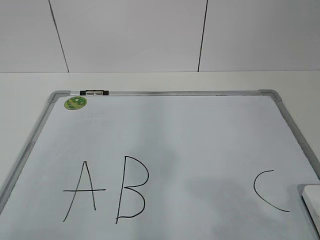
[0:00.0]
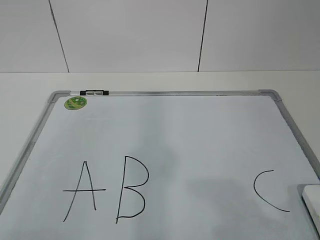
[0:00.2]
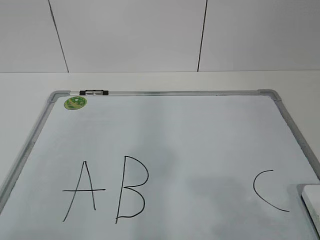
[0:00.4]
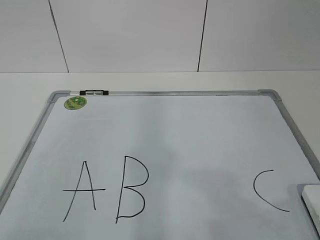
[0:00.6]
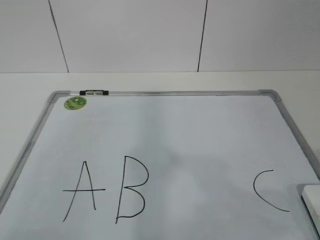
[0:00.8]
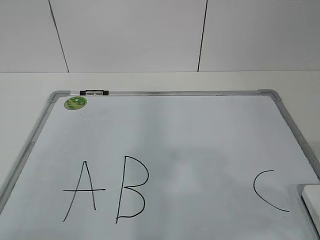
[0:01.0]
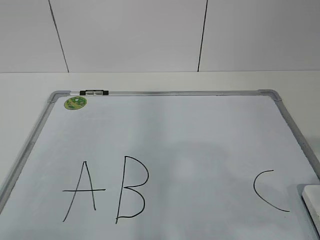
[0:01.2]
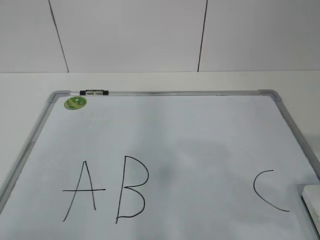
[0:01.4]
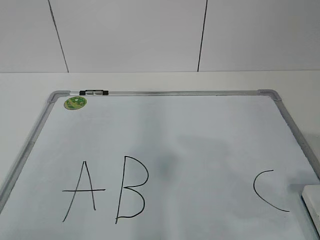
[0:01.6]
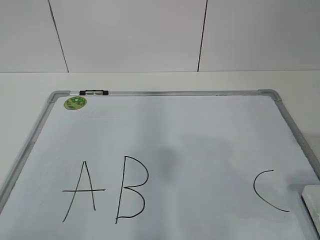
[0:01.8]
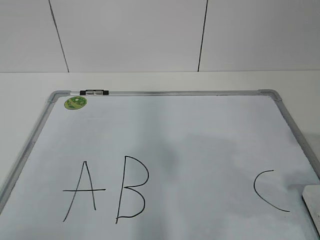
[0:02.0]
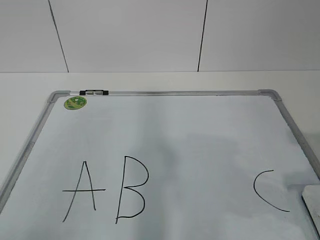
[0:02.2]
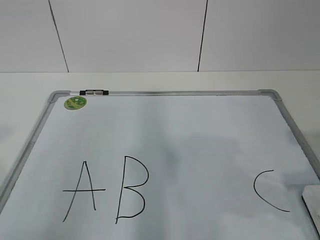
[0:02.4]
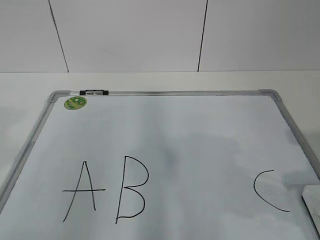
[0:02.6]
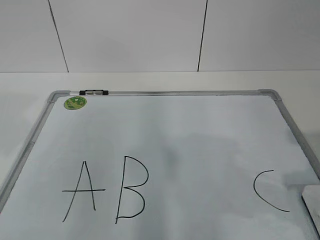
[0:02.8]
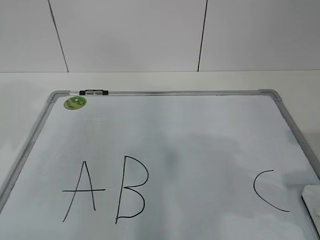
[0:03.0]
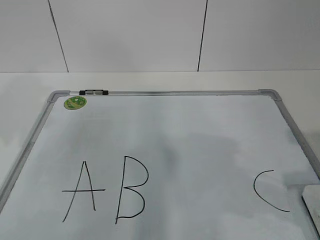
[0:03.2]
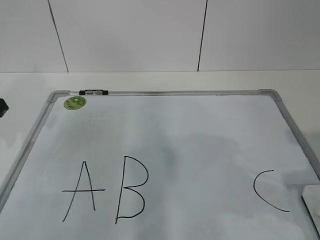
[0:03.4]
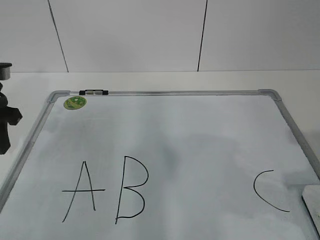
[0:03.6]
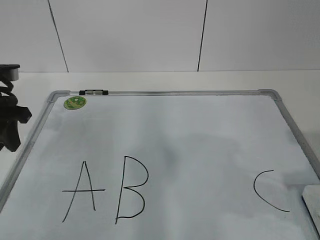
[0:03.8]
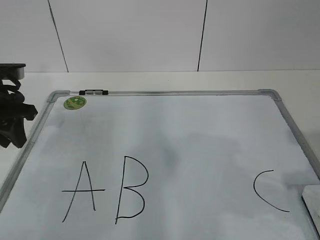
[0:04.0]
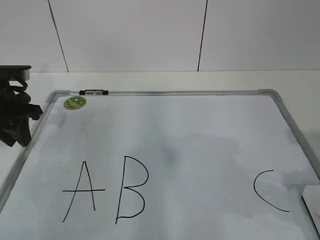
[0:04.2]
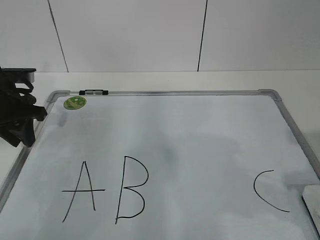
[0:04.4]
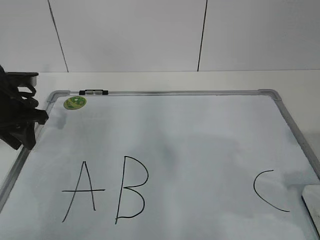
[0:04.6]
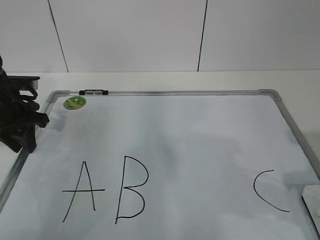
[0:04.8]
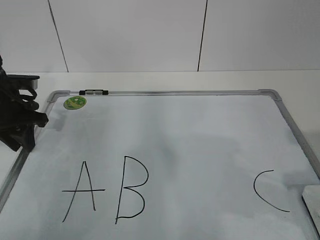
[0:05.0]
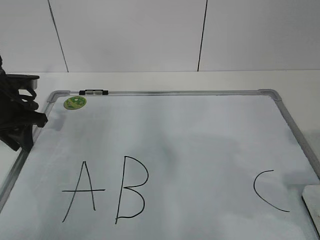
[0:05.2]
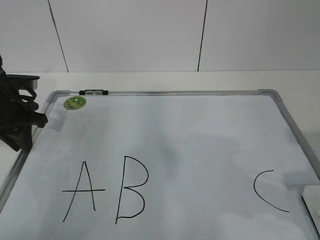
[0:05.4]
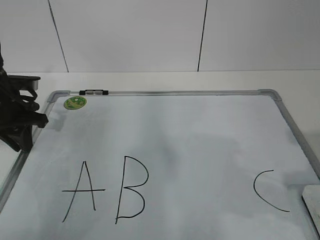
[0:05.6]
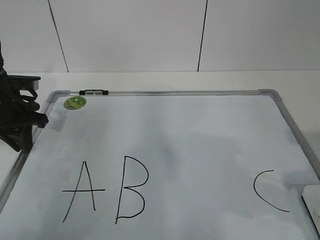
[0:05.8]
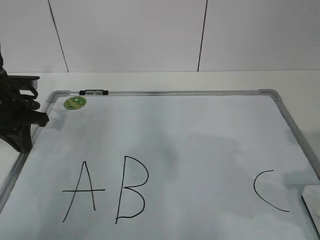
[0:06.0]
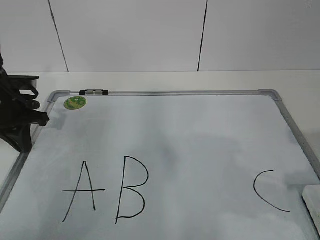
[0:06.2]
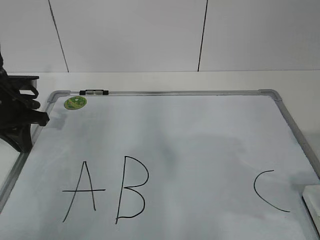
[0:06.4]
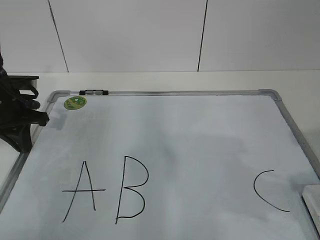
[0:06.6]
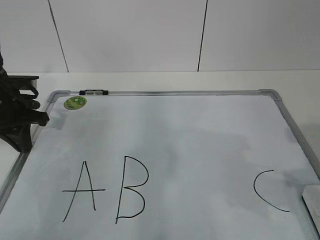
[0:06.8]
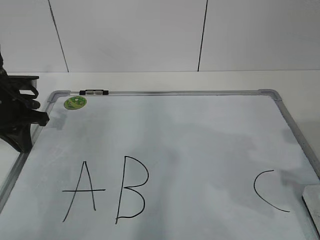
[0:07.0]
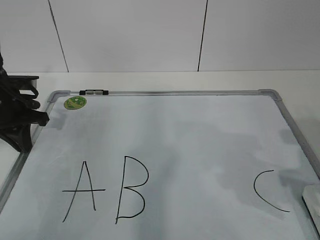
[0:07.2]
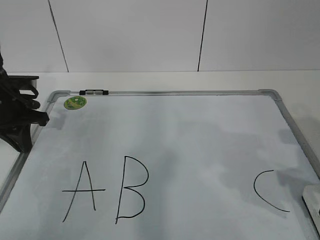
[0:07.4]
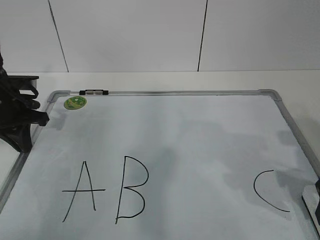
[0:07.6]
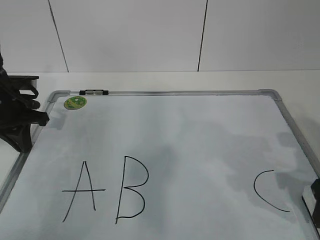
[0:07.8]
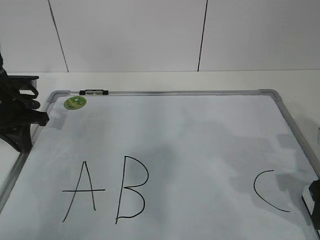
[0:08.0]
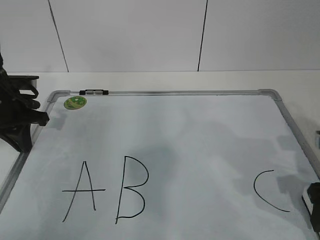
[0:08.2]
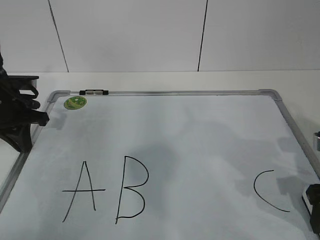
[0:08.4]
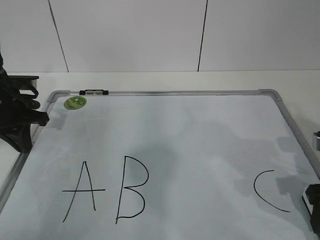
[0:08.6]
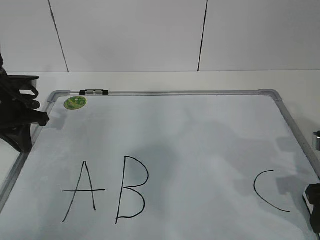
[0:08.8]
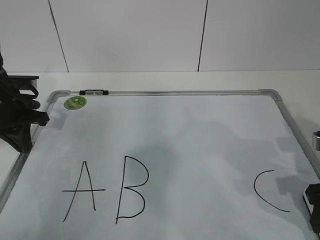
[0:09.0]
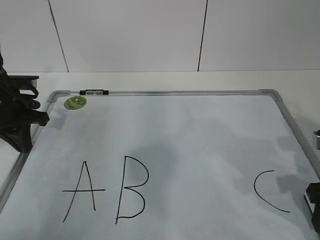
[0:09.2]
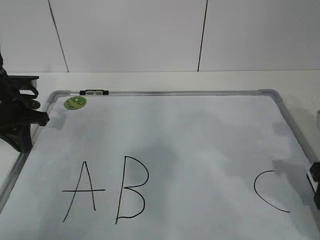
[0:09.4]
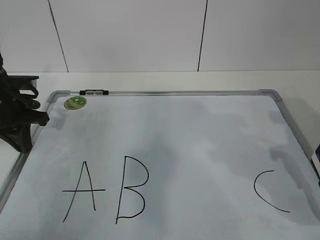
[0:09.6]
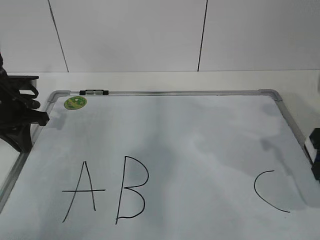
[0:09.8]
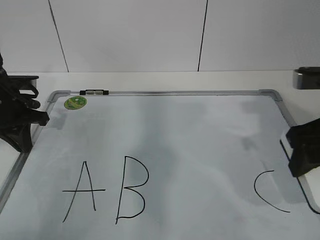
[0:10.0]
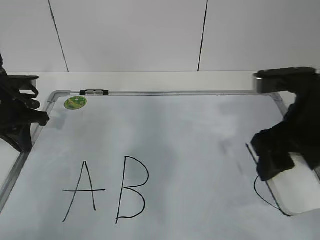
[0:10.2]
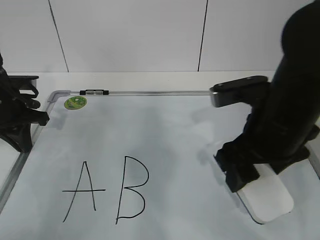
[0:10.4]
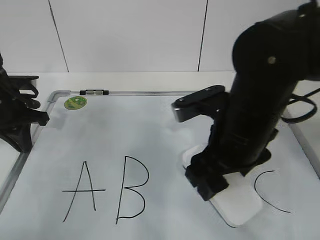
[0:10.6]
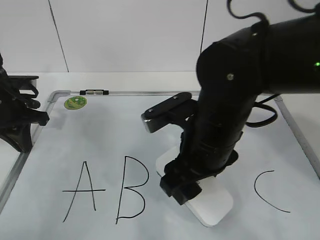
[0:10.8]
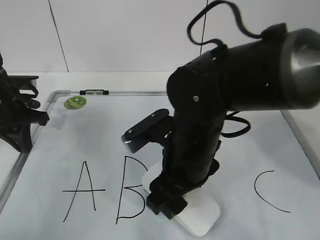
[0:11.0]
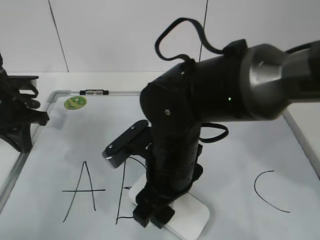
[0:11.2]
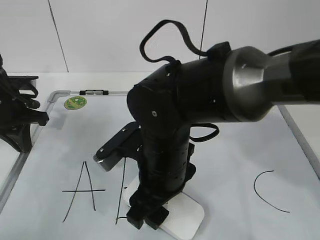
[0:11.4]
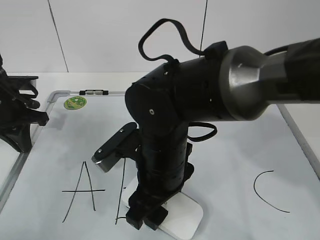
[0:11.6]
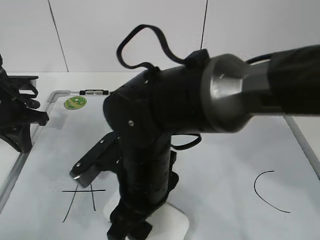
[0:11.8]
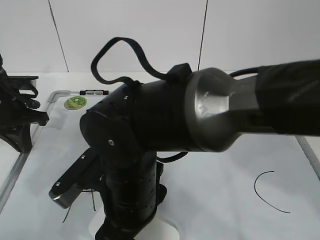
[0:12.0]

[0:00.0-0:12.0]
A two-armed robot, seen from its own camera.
Task of the whole recording: pick up the eraser on the blackboard and erase the letter "B".
Step, 0:00.0 to 0:04.8: Hold the drawing board steady with your left hand.
0:03.0 to 0:04.4: The left gripper travels forward and downward by about 20 cm.
0:04.4 to 0:06.0: The left gripper closes up.
0:06.0 to 0:07.6: The right gripper moves forward and downward, approximately 10 cm, and opens.
0:07.6 to 0:09.0: The right gripper closes.
0:09.0 to 0:10.4: The right gripper shifts roughly 15 cm to the left and upward.
0:10.4 to 0:12.0: The right gripper moves to the left and downward, roughly 20 cm.

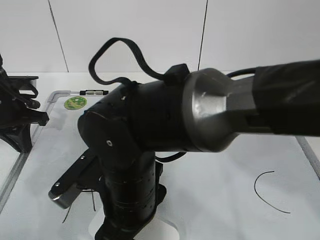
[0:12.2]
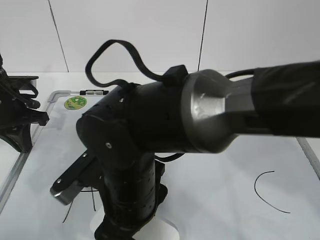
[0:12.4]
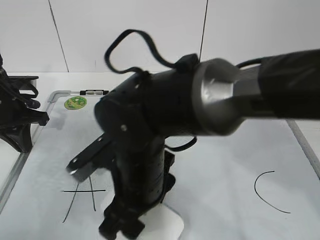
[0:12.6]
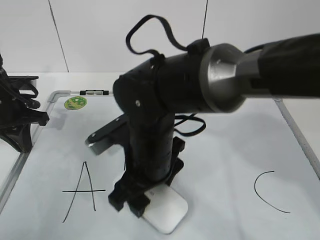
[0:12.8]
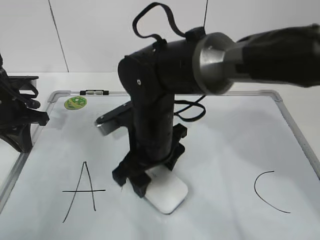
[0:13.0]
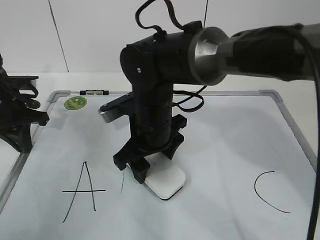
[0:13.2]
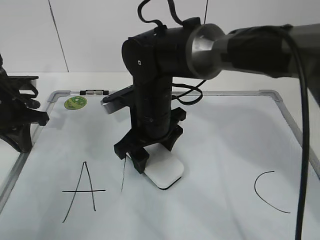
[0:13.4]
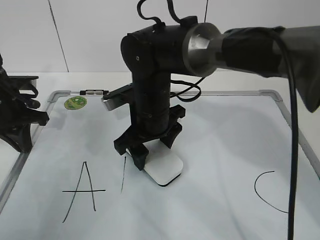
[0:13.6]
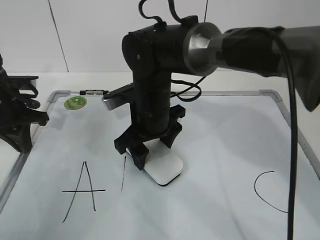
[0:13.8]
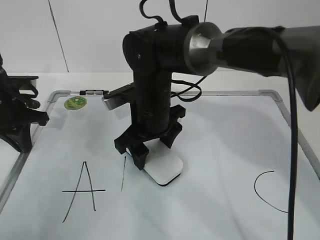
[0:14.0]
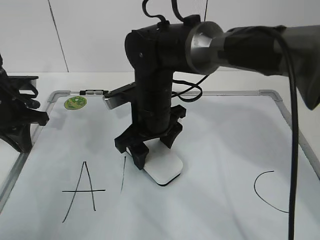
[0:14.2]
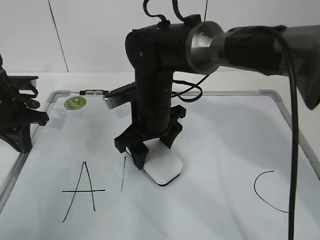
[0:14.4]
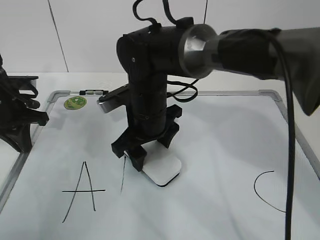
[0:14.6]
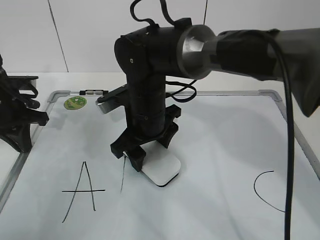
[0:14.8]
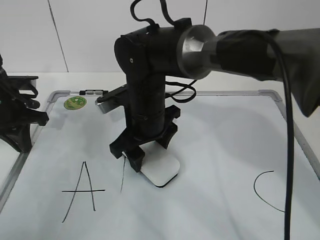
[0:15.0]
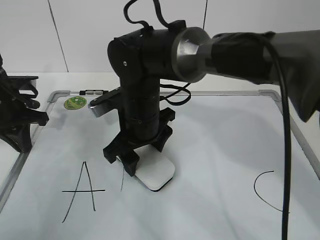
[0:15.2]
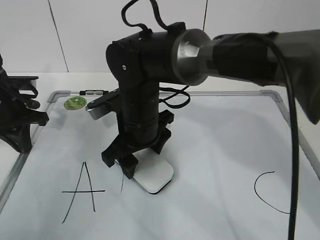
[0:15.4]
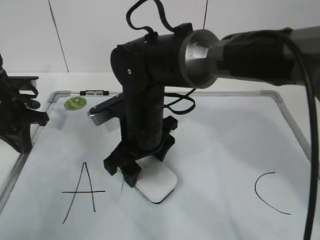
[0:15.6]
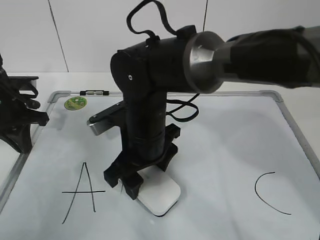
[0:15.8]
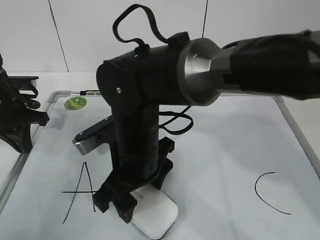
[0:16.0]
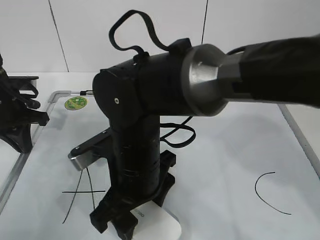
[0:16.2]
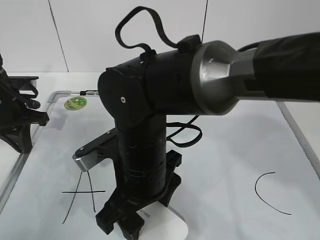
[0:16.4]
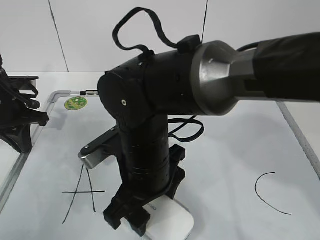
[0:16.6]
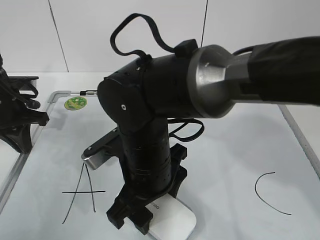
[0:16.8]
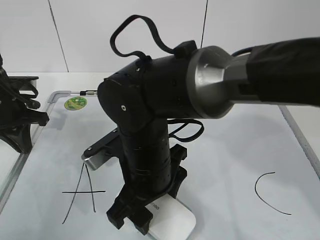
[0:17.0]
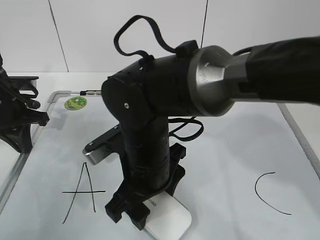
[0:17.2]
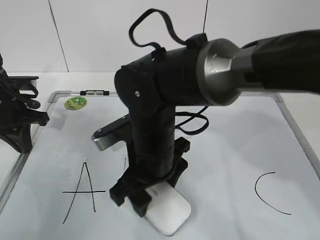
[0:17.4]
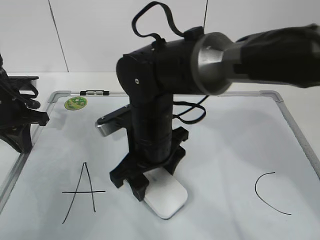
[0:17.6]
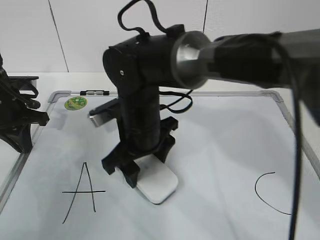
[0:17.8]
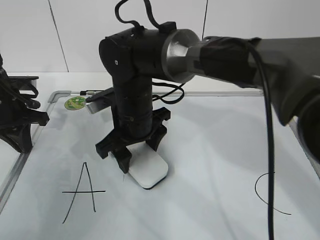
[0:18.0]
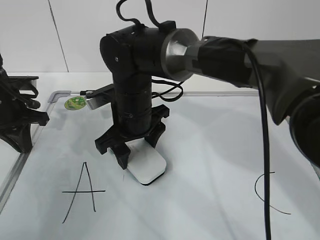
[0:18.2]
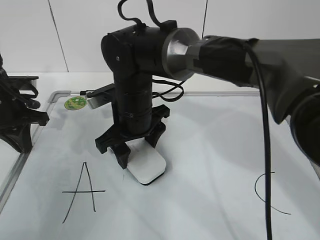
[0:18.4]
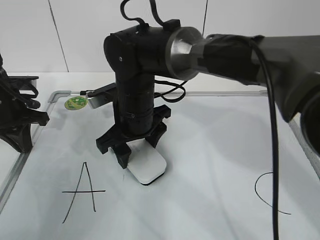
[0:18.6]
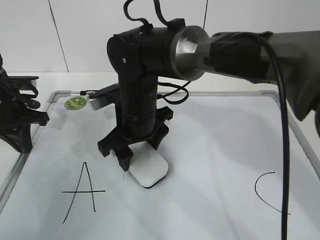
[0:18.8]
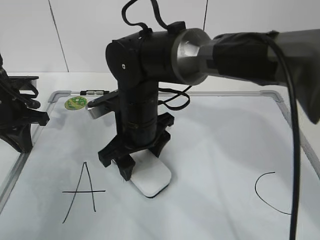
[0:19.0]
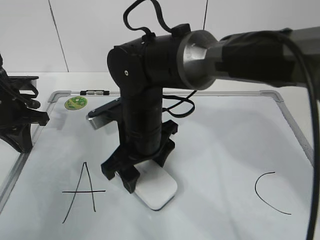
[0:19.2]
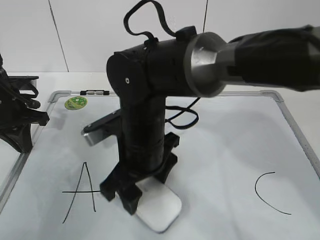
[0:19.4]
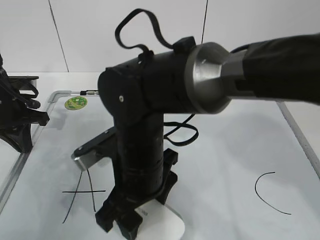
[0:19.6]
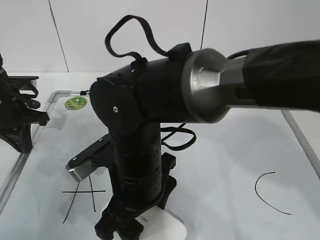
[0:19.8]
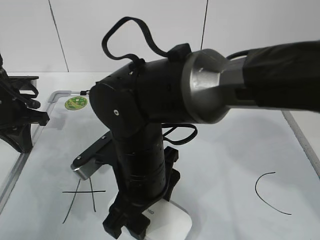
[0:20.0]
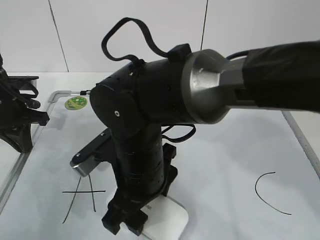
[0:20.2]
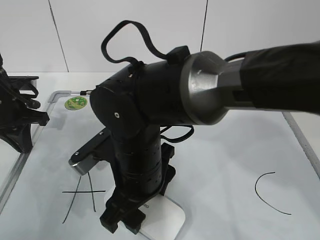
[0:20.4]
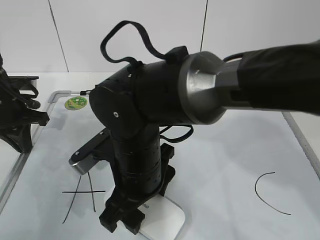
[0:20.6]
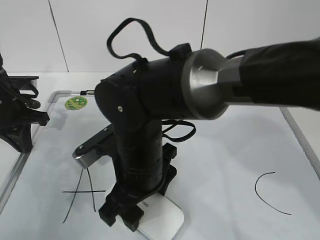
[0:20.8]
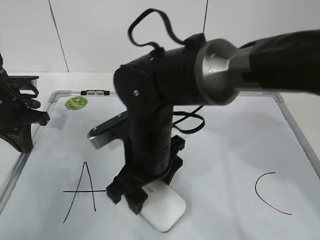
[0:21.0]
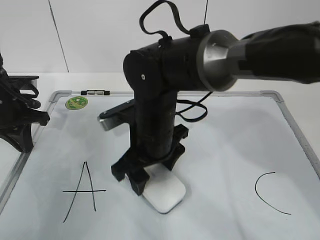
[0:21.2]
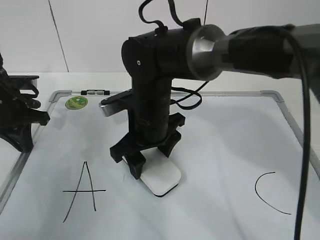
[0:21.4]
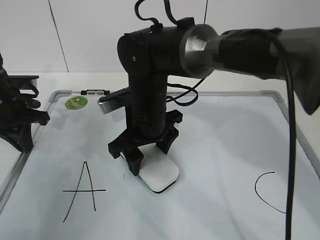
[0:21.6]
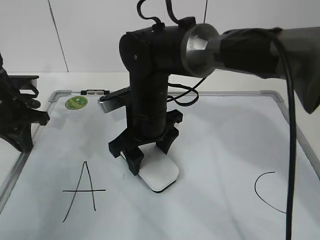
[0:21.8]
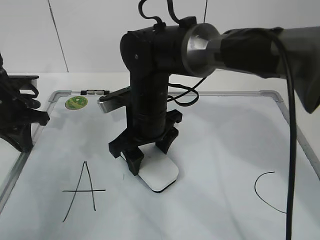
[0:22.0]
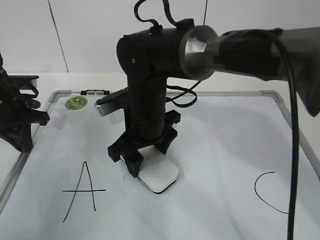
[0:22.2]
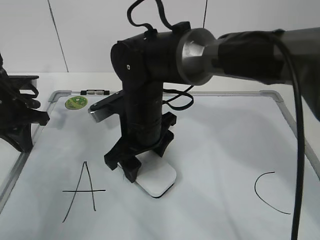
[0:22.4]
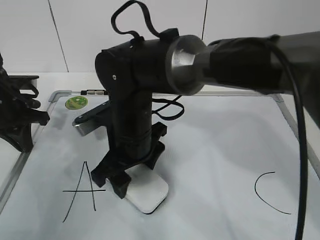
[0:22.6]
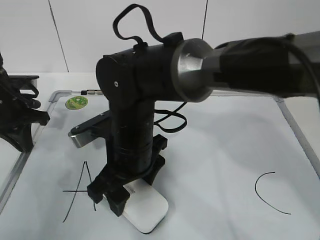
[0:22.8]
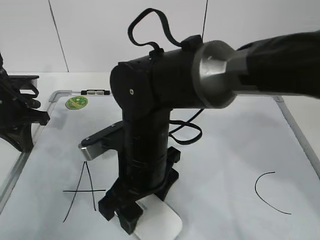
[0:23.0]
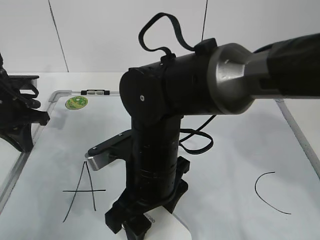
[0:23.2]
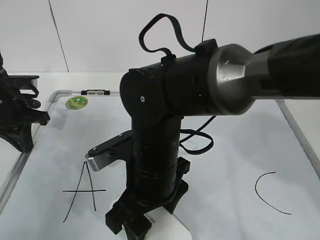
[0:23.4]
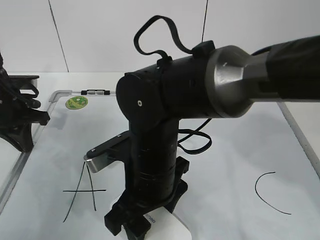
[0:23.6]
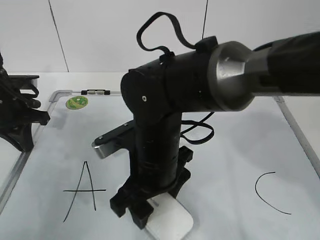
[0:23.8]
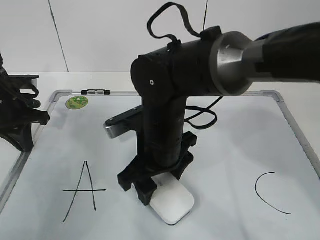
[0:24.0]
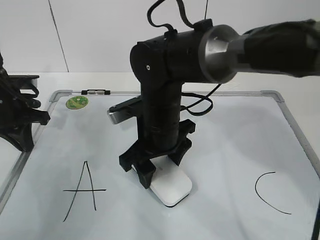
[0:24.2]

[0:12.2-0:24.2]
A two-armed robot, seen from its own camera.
Task of the whole recording: pick up the eraser on the blackboard and erase the letter "B".
Step, 0:12.2 to 0:20.2: Erase the letter B with your right hand.
Step, 0:20.6 to 0:23.2: Put down the eraser with your right hand.
0:12.2 to 0:13.8: The right gripper shifts approximately 15 cm forward.
0:13.8 to 0:15.2: There are only small adjustments of the grippers.
0:15.2 to 0:16.6: The right gripper shifts approximately 10 cm backward.
0:16.6 to 0:18.2: The right gripper shifts roughly 10 cm forward.
0:18.2 to 0:19.8: The right gripper travels backward by about 10 cm.
0:19.8 to 0:21.2: The right gripper moves forward, some 5 cm.
0:22.6 to 0:24.2: The right gripper reaches roughly 5 cm backward, then returns.
